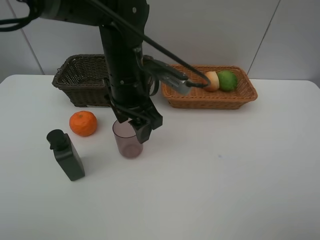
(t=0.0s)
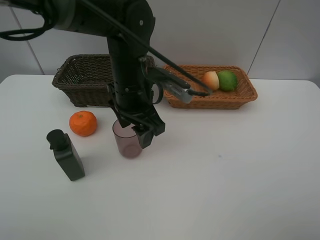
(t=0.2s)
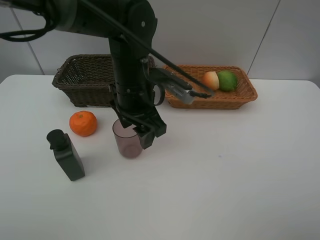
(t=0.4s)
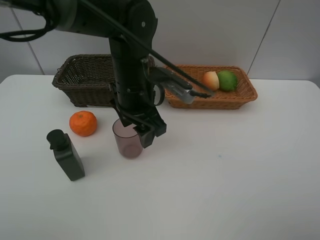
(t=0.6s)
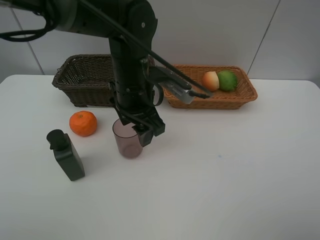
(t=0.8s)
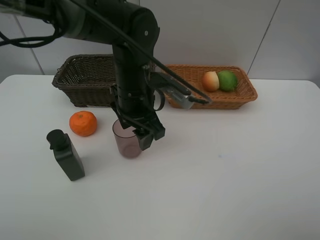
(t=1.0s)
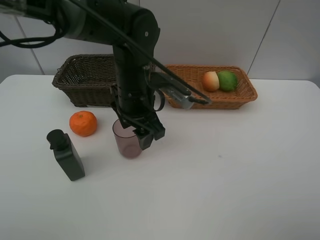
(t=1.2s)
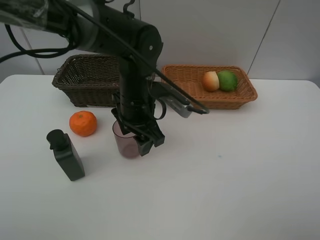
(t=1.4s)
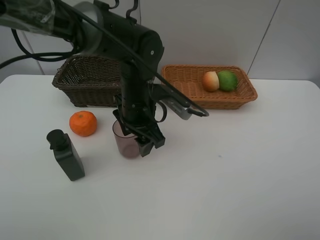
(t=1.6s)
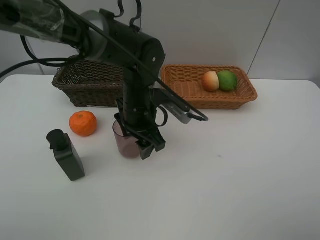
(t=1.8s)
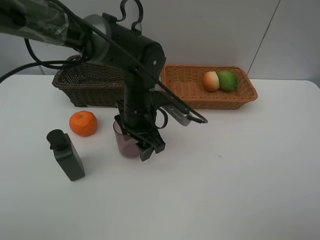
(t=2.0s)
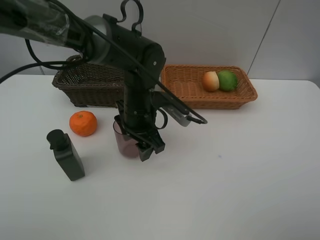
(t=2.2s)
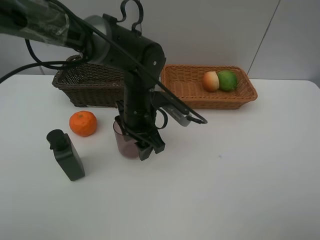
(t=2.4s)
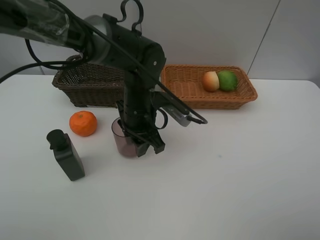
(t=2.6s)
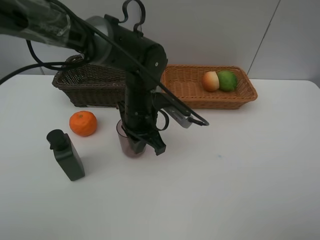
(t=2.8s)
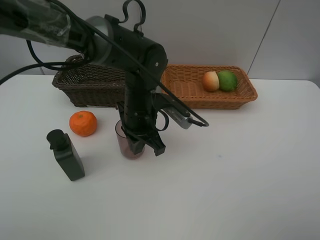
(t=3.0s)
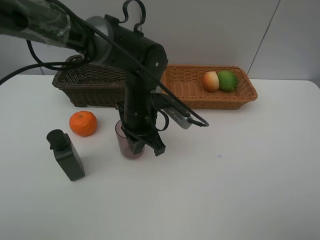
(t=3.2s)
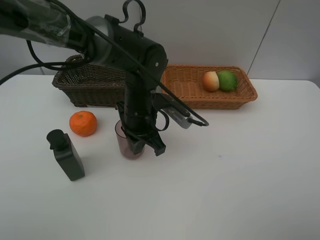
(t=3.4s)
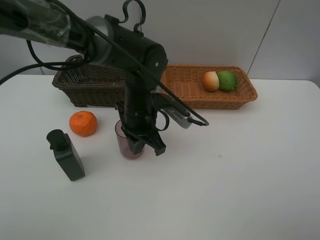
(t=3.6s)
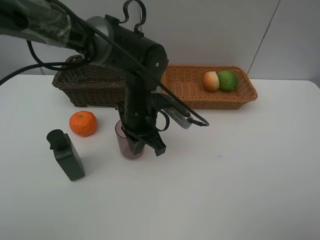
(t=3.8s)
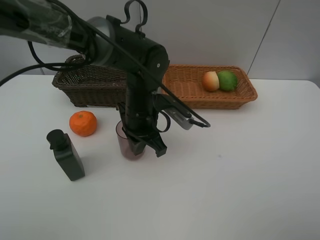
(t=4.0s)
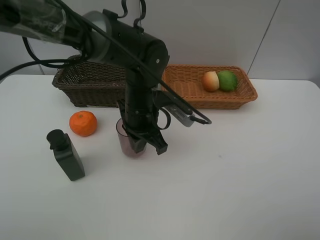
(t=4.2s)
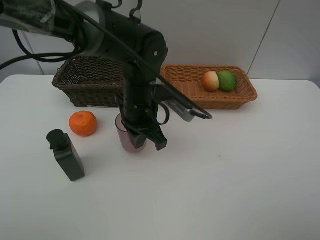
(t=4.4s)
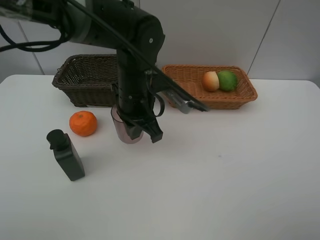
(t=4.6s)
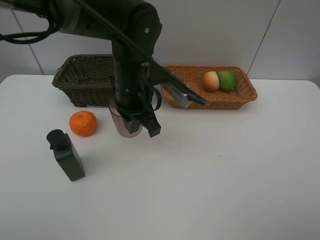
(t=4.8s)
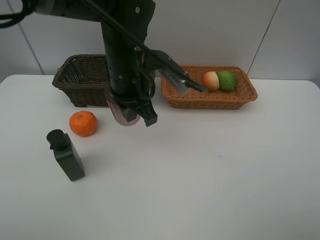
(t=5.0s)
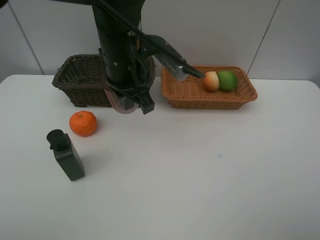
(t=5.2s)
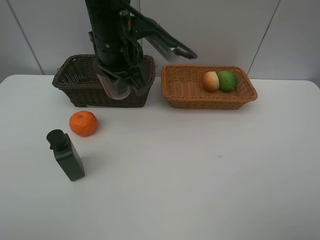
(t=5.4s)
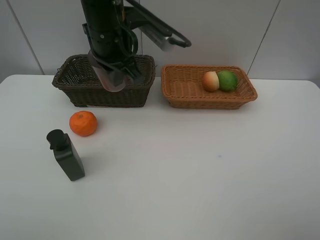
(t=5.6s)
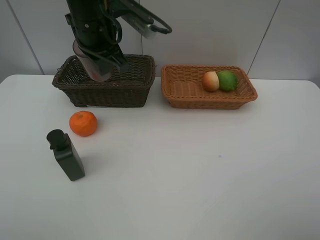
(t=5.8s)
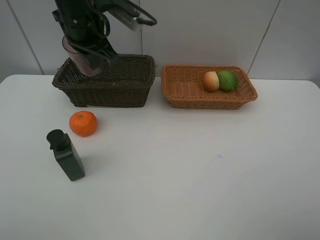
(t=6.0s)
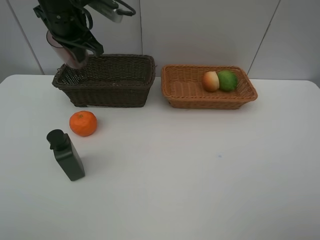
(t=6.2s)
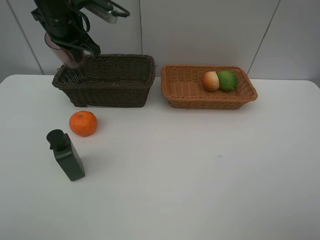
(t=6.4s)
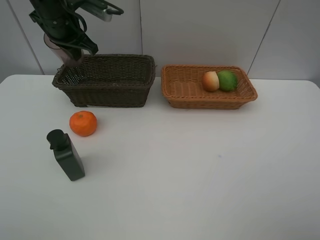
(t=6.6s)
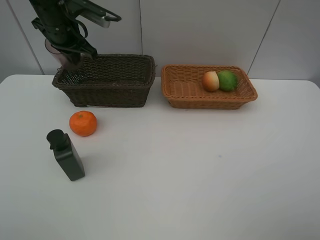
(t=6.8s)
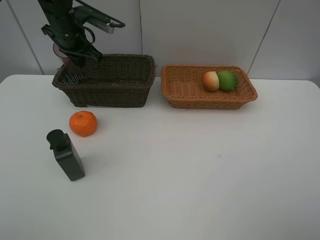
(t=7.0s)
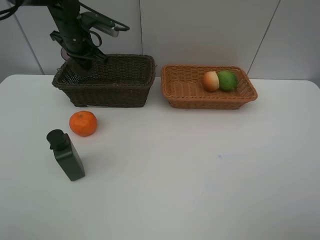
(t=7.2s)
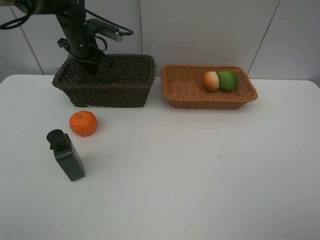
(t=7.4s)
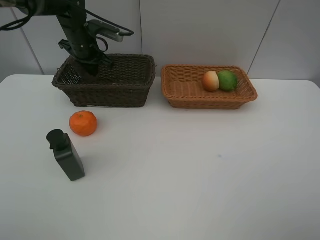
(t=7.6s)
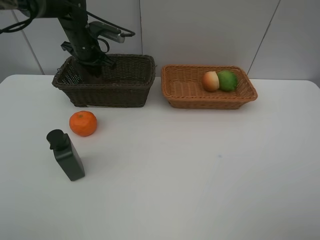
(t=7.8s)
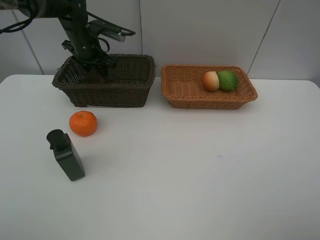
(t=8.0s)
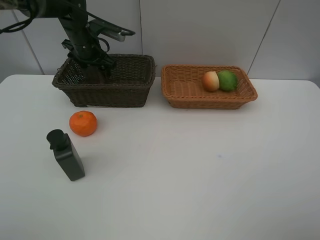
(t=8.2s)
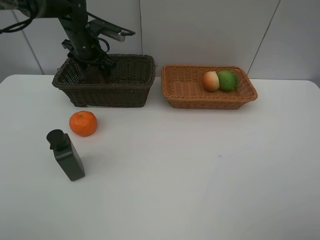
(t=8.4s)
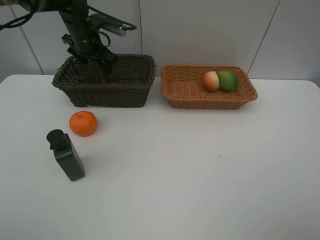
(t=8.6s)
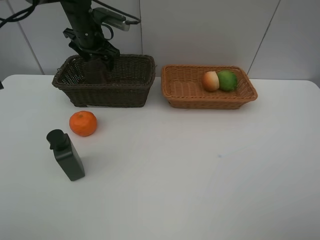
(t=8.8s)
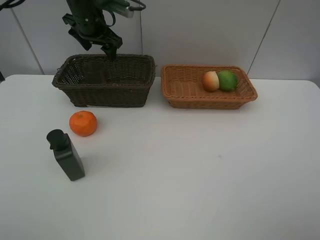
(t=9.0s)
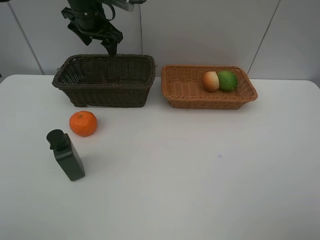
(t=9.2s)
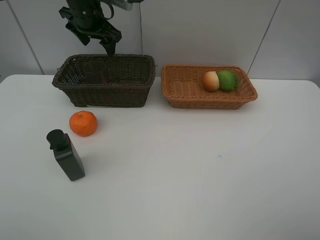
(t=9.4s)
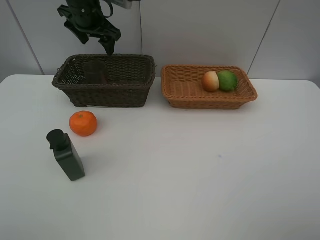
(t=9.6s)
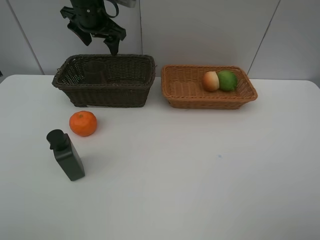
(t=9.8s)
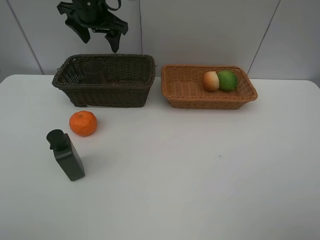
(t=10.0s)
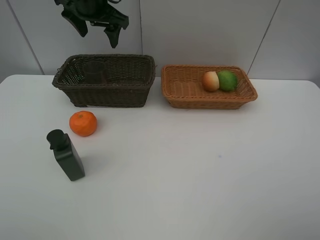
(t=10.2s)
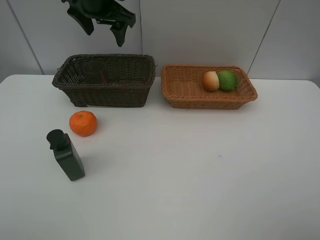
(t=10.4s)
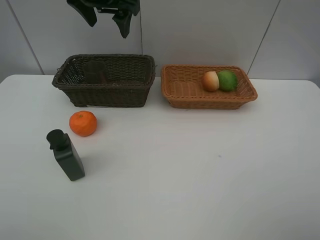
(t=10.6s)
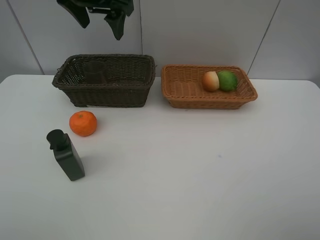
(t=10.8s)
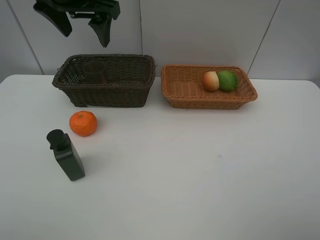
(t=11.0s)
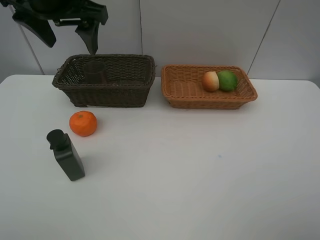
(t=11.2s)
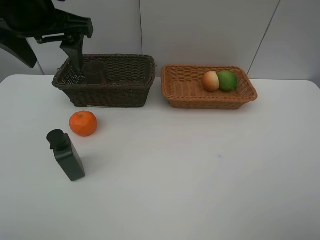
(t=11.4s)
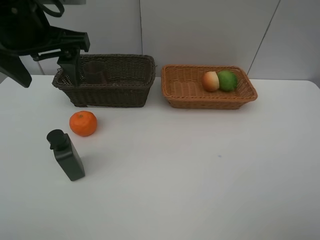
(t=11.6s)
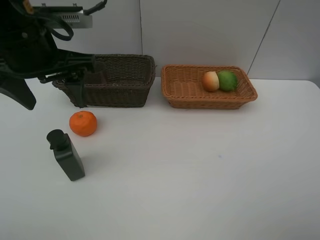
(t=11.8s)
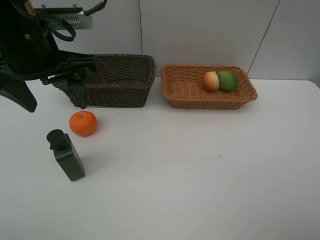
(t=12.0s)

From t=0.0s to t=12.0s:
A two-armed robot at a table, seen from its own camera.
Task of the whole recording: place multiple objects separately in different baskets.
From t=0.0s to t=1.6s: The left gripper heads downward, covering about 5 cm.
From t=1.6s to t=3.0s: The left gripper closes its fingers.
From t=3.0s to t=4.4s: The grippers make only small movements.
From t=4.4s to t=6.0s: The left gripper travels upward, to the left and forward by some 20 cm.
From t=6.0s to t=7.6s: The left gripper heads forward, downward and to the left, covering some 15 cm.
From t=7.6s to t=9.0s: The left gripper heads upward, covering roughly 5 cm, and opens its fingers.
From t=9.0s to t=10.4s: The left gripper goes approximately 10 cm upward and backward.
From t=10.4s to t=12.0s: The left gripper goes roughly 20 cm backward.

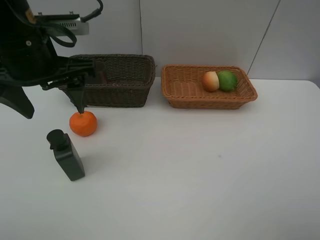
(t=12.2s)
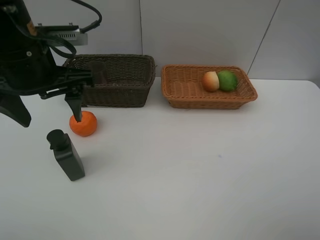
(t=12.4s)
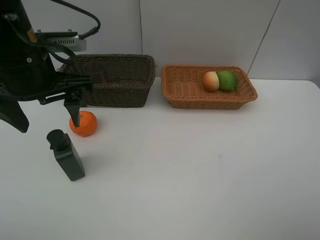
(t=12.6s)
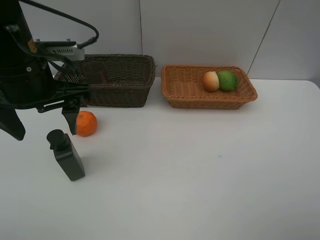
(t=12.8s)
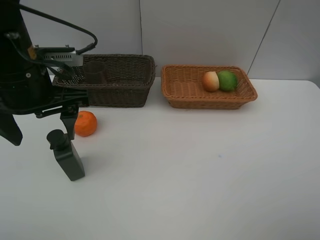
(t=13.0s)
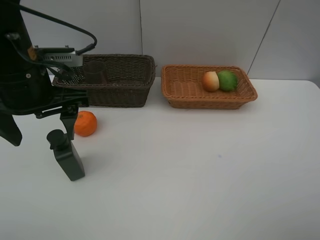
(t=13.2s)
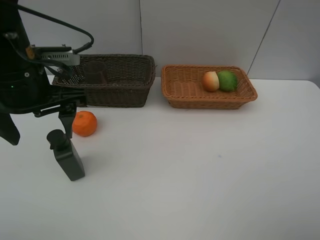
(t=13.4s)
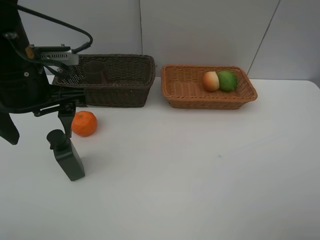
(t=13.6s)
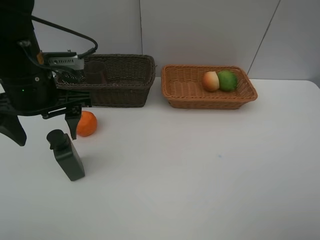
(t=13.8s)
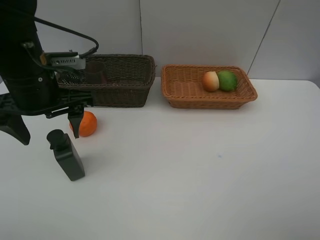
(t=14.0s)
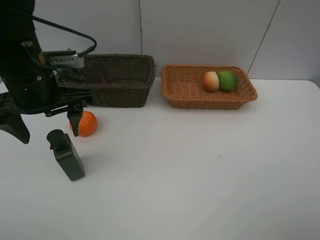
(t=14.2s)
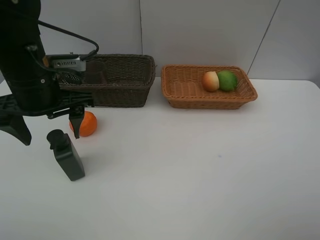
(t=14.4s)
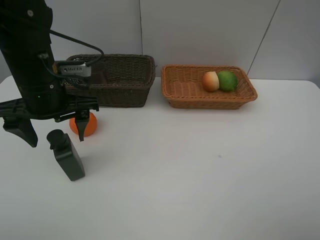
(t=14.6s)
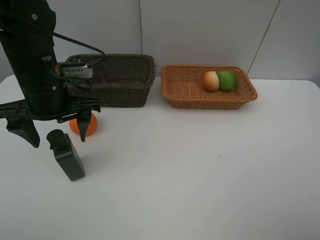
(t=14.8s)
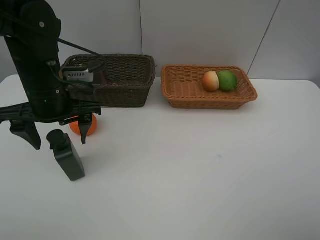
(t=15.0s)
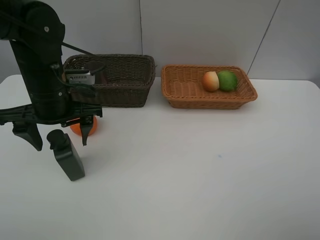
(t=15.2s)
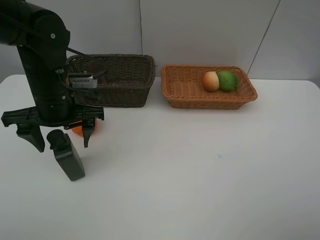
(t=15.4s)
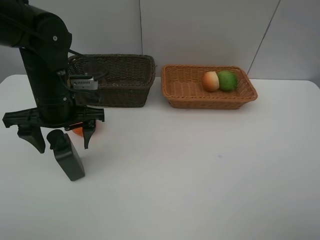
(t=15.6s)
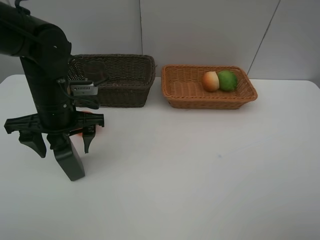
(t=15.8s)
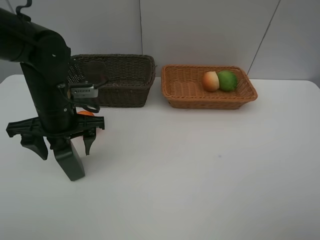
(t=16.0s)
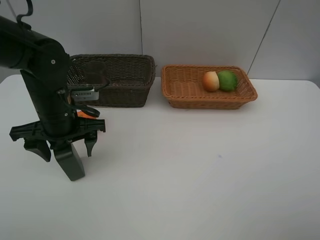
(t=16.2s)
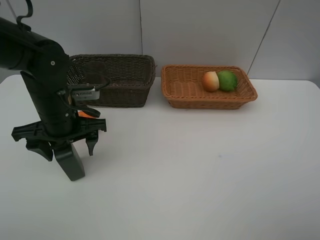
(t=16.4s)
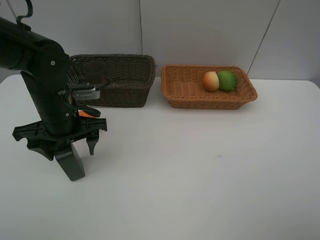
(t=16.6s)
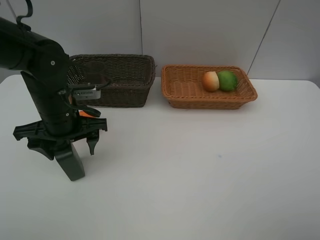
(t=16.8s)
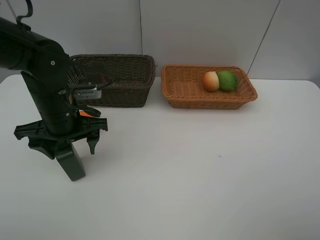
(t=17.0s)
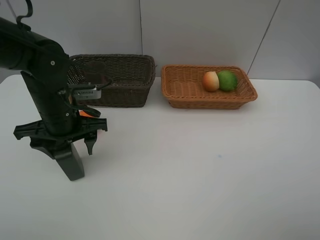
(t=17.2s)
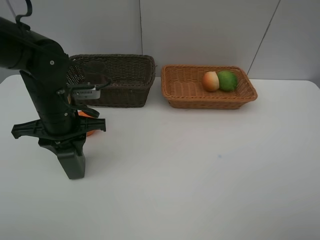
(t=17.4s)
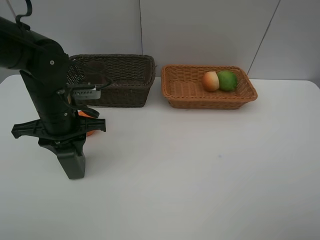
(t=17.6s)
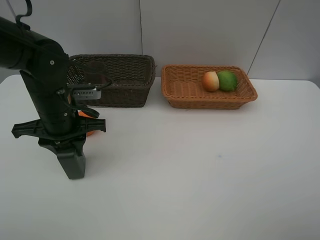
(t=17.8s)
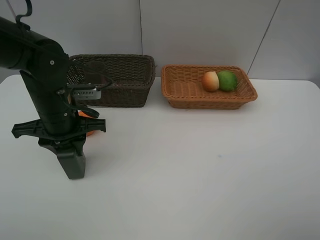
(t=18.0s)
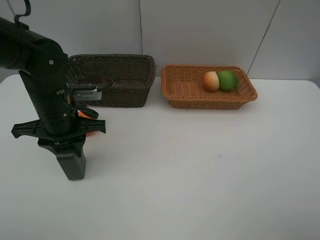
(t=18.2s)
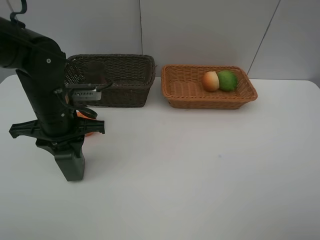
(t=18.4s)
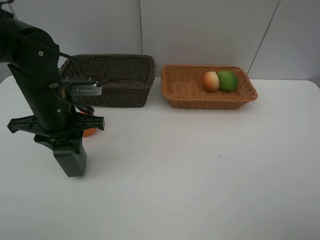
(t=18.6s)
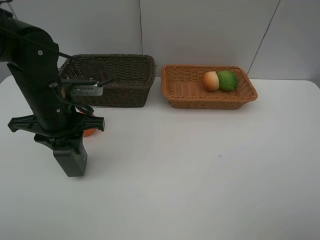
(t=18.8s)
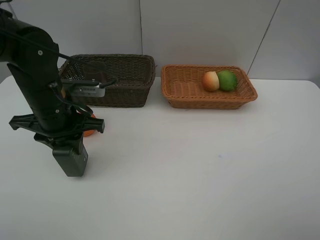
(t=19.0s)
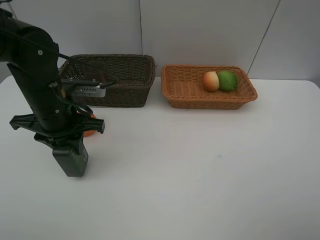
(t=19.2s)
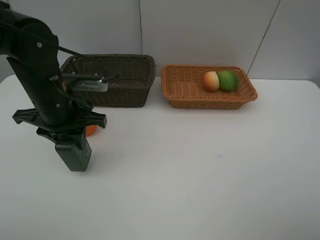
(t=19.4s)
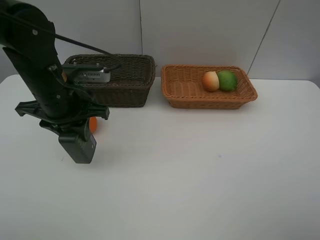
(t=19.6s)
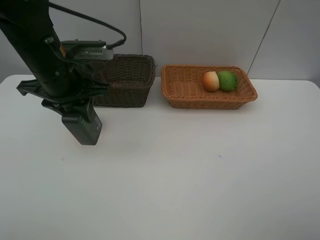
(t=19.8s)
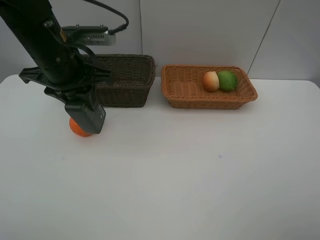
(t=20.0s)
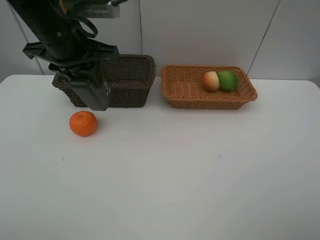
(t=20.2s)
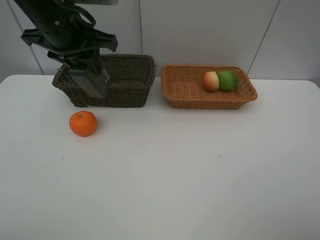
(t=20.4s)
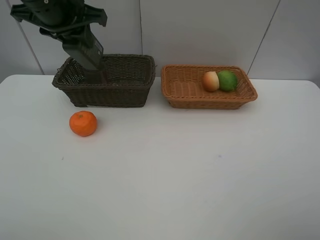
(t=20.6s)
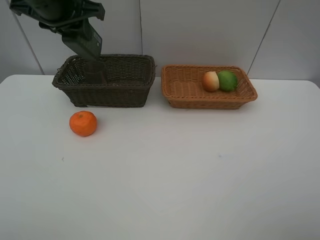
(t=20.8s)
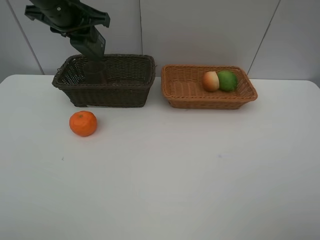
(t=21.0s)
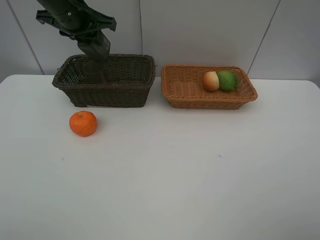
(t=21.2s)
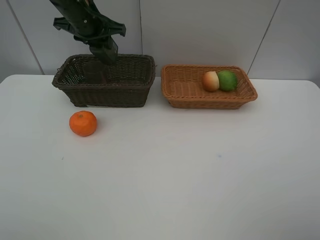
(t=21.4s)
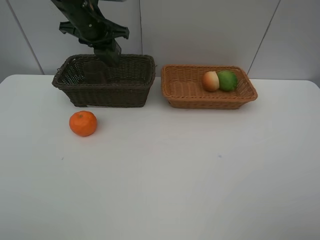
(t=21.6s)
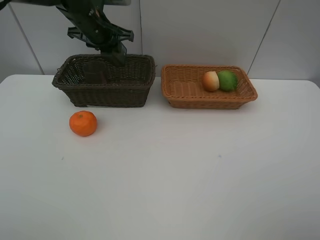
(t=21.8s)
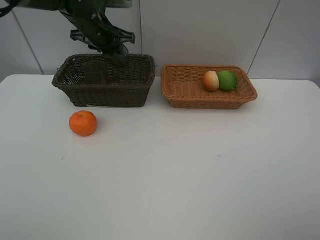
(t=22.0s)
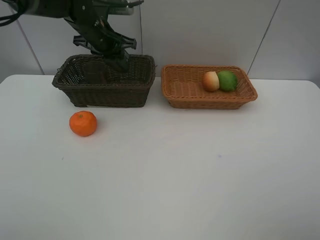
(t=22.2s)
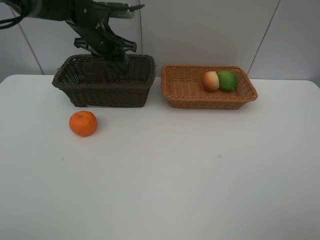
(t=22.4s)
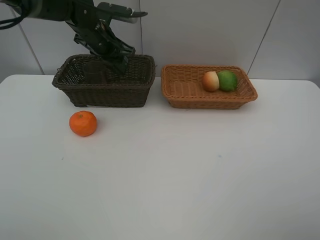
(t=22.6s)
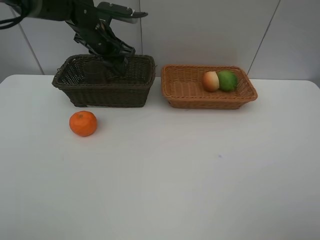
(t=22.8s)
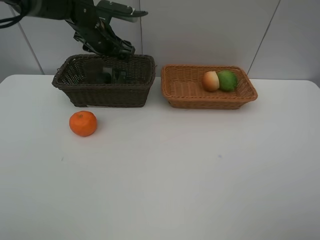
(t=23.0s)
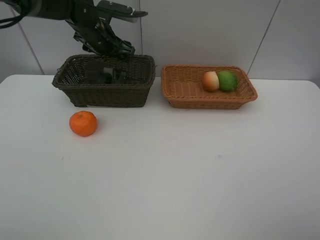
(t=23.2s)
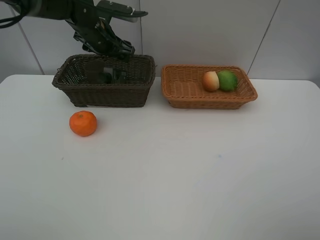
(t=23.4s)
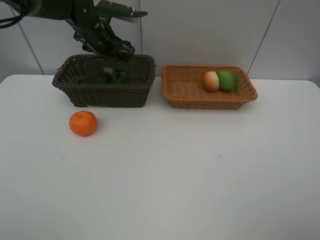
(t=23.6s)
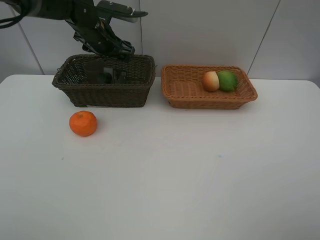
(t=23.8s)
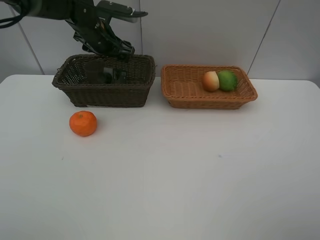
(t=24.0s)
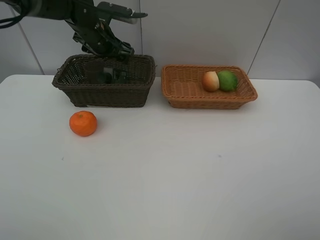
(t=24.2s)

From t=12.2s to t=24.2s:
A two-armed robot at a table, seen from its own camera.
Task of the whole recording: place multiple objects separately in different baskets.
From t=12.2s to t=13.8s: There are only small adjustments of the grippers.
From t=13.8s to t=15.2s: The left gripper moves roughly 5 cm.
From t=15.2s to t=16.6s: The grippers stay close to where they were, moving slightly.
From t=16.6s to t=18.2s: The left gripper closes.
From t=18.2s to t=19.8s: The left gripper shifts some 10 cm upward.
From t=19.8s to t=21.2s: The left gripper is displaced forward by approximately 15 cm.
From t=21.2s to t=22.6s: The left gripper moves downward and forward, some 10 cm.
